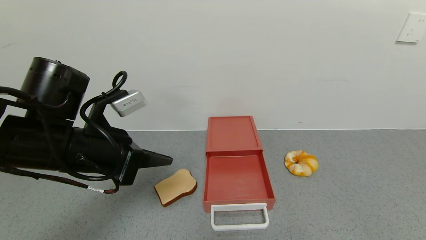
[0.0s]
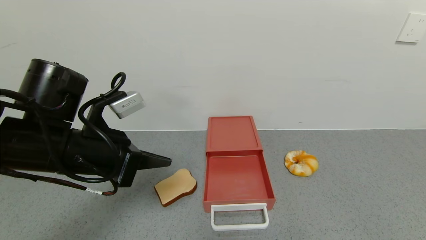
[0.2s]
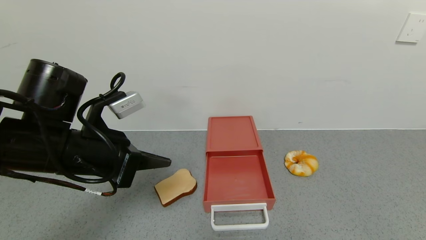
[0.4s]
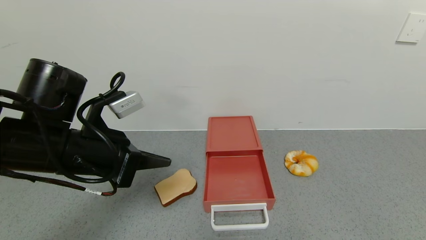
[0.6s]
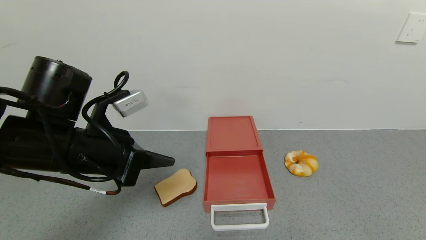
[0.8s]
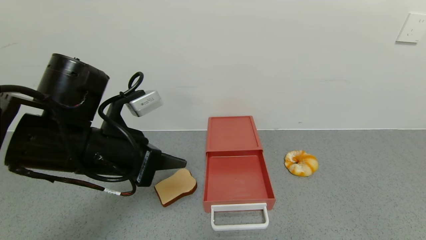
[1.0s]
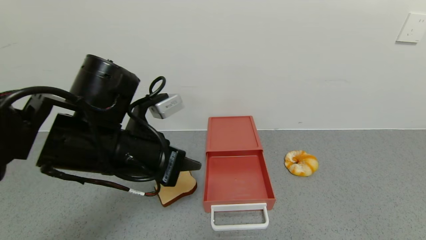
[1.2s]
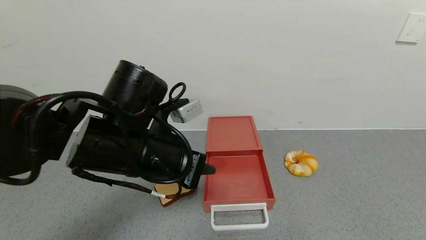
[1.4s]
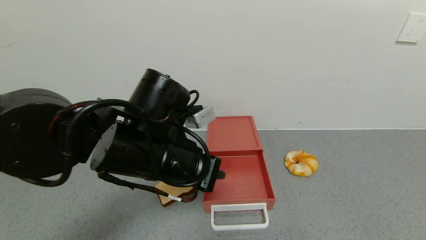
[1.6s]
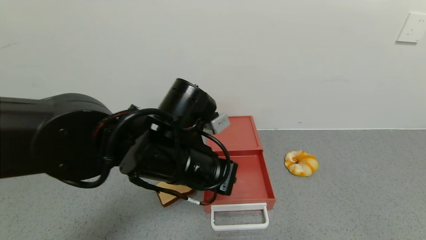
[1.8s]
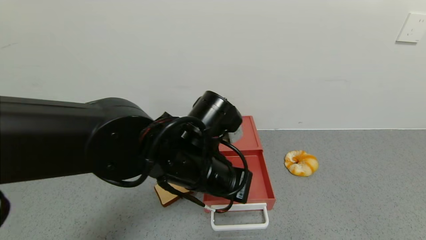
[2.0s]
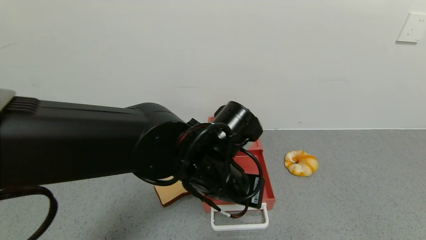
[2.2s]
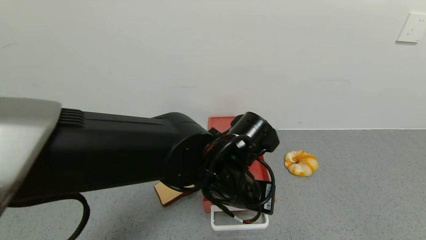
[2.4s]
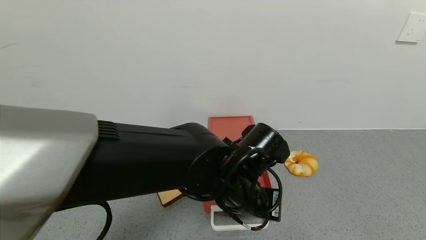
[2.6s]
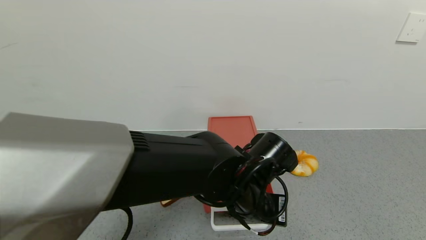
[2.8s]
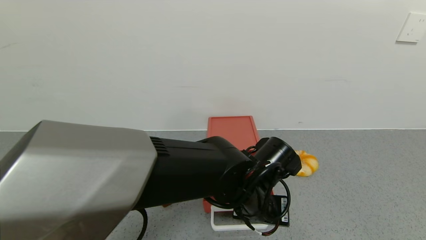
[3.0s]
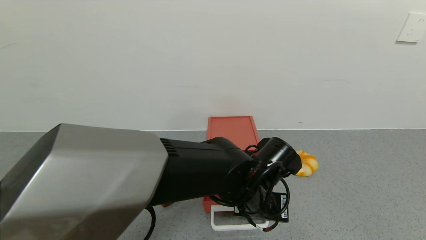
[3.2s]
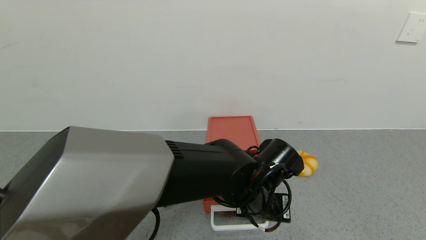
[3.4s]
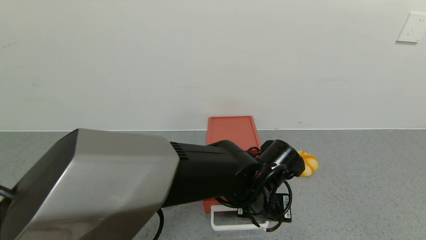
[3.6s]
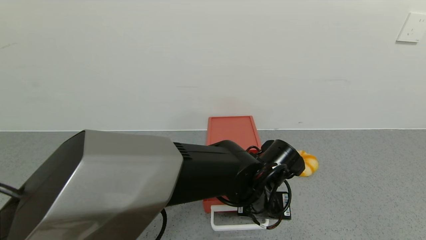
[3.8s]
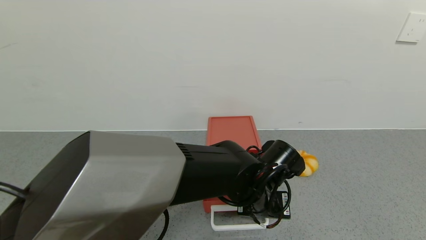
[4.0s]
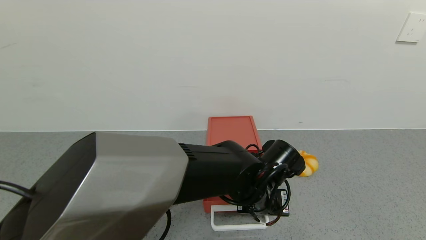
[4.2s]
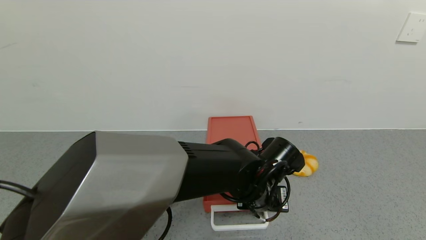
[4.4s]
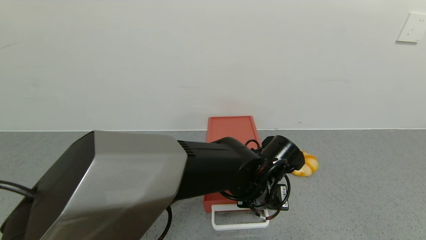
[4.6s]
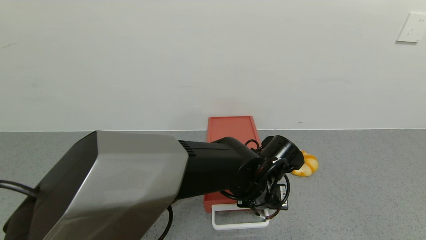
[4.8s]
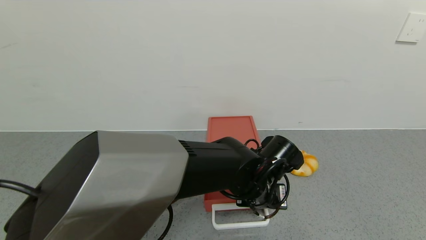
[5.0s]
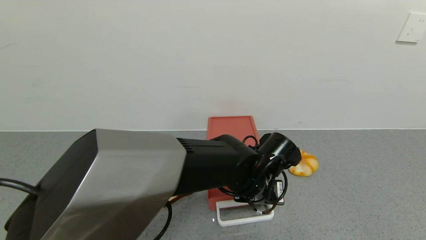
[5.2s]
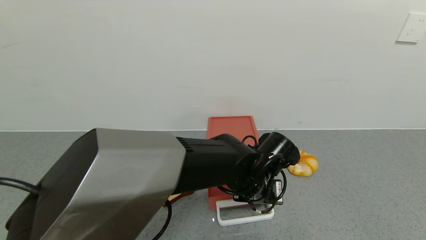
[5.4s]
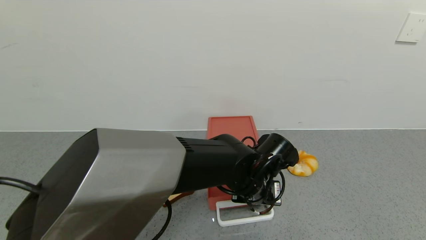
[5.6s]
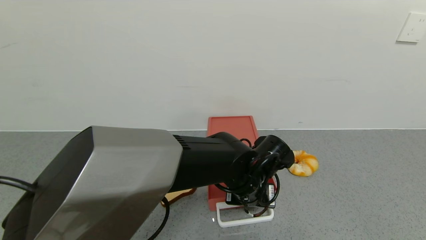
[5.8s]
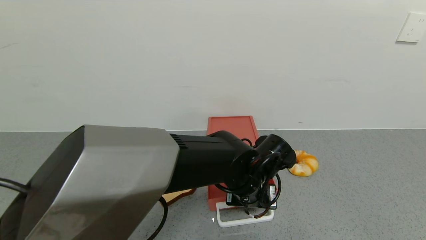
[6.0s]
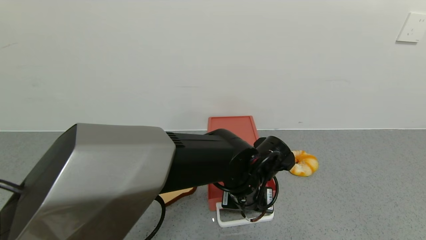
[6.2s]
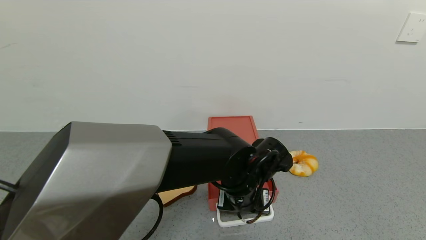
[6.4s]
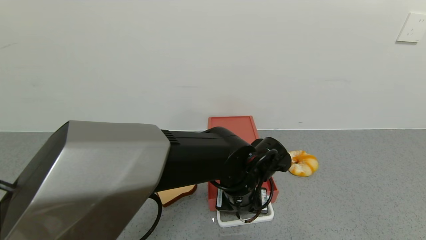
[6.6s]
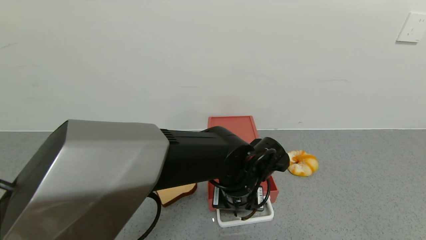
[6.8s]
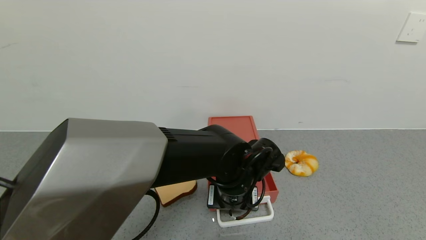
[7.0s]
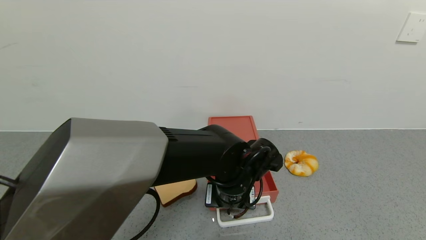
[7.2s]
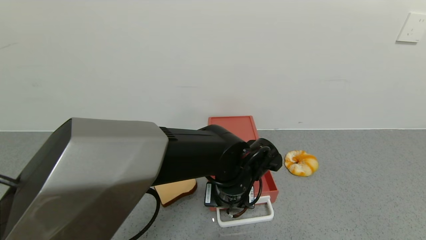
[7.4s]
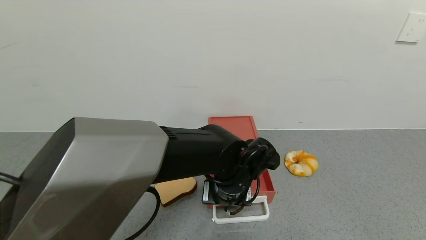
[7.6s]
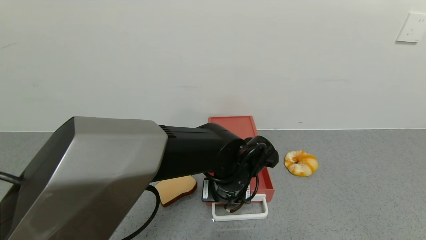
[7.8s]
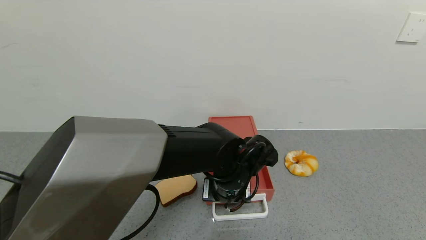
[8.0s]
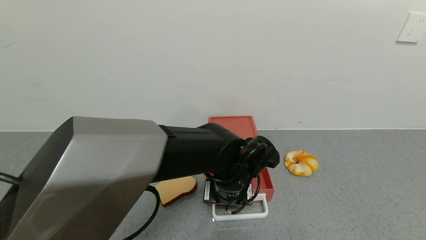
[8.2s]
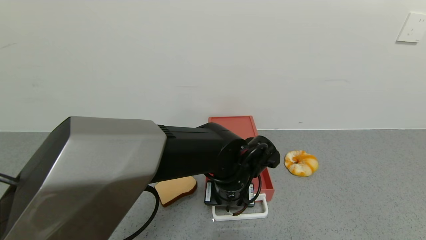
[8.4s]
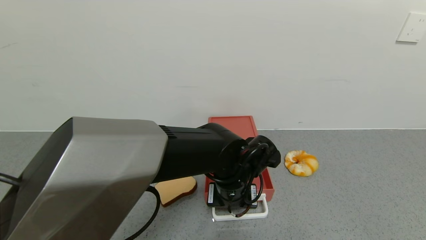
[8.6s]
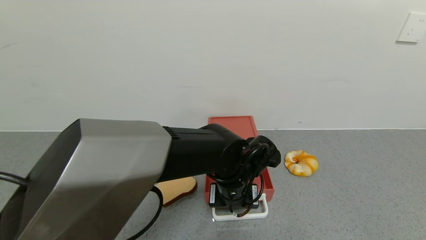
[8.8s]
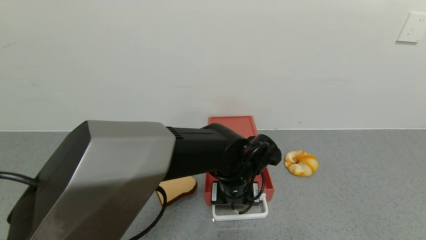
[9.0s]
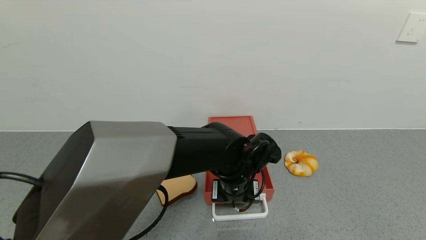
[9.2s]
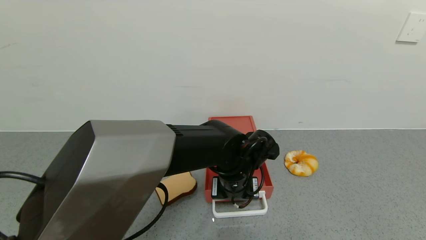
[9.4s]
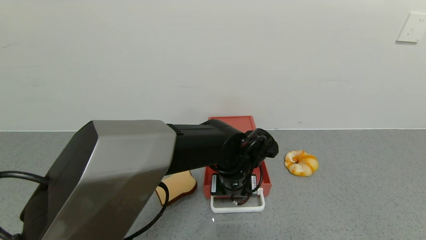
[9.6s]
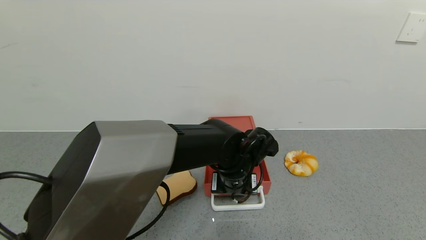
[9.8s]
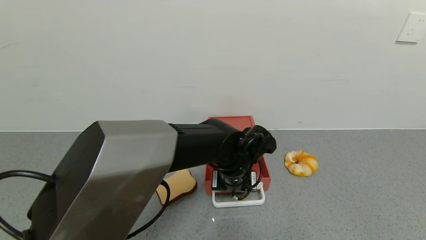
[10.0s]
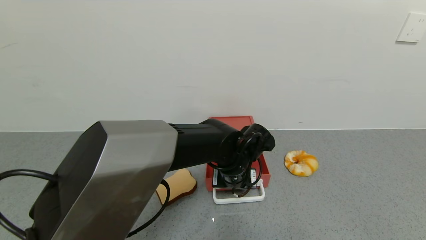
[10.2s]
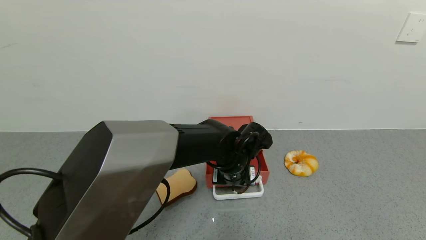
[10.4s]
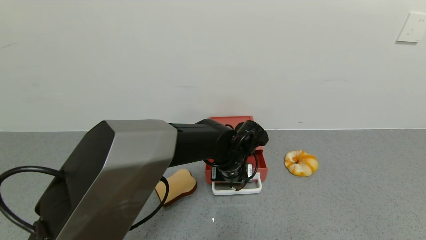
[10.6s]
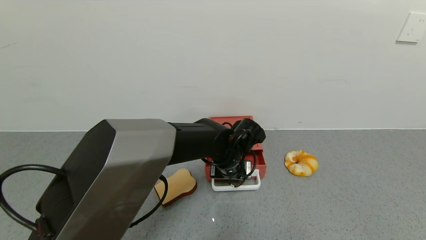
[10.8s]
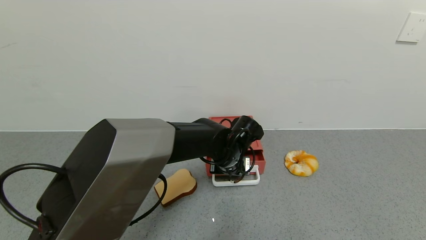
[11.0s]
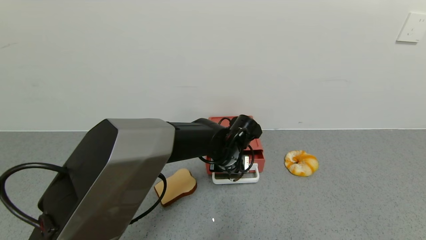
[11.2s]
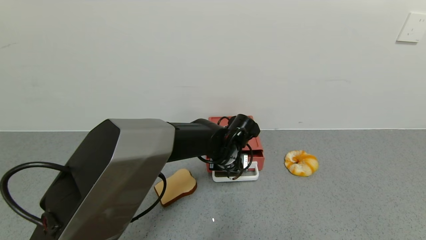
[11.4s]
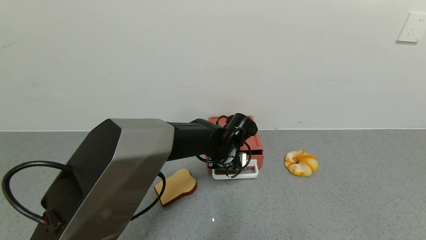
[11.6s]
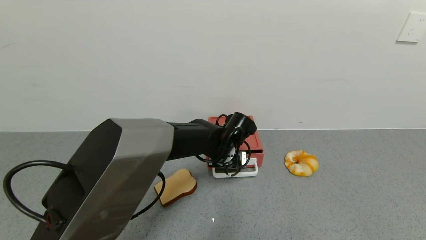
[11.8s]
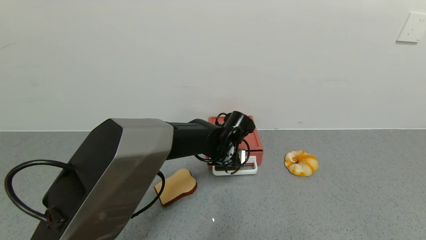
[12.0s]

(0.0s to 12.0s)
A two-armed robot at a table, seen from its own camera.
Task of the whole recording: use the gripper to open the drawer and close the red drawer.
0.0s - 1.6s: The left gripper heads to the right, covering approximately 10 cm.
1.6s - 3.0s: The left gripper shifts approximately 15 cm to the right and downward.
3.0s - 6.0s: The grippers move only a little.
6.0s - 9.0s: There are only small adjustments of the grippers.
9.0s - 10.4s: The grippers move only a little.
10.4s - 12.0s: The left gripper ends up some 5 cm from where it was.

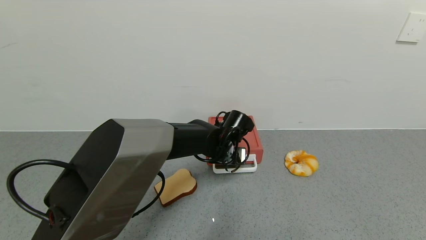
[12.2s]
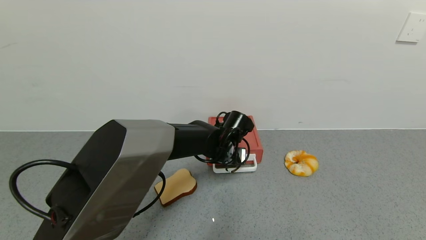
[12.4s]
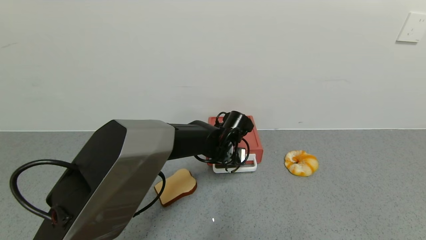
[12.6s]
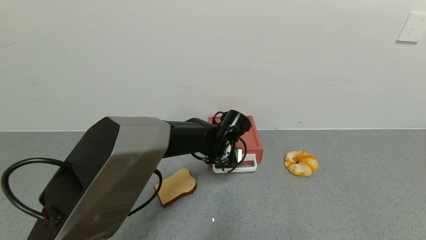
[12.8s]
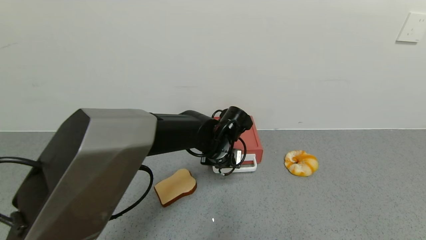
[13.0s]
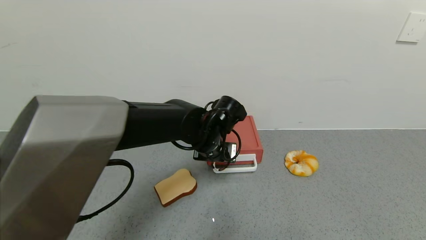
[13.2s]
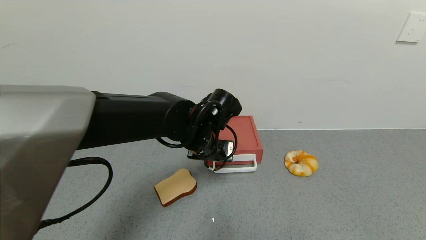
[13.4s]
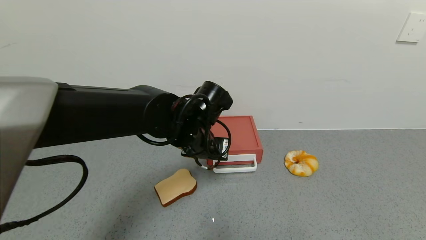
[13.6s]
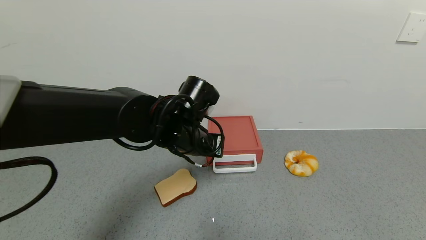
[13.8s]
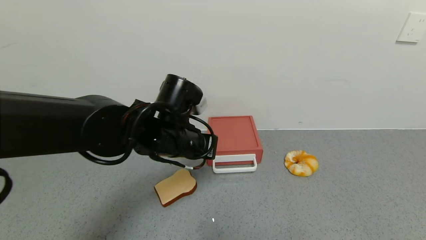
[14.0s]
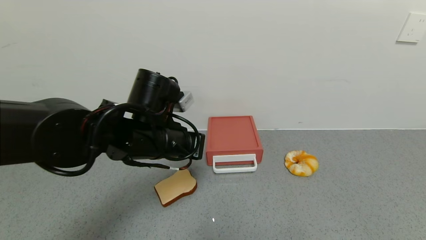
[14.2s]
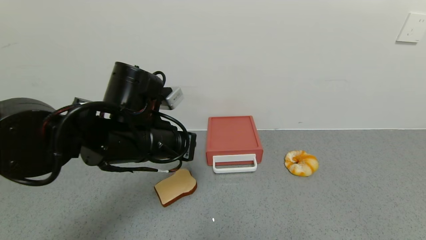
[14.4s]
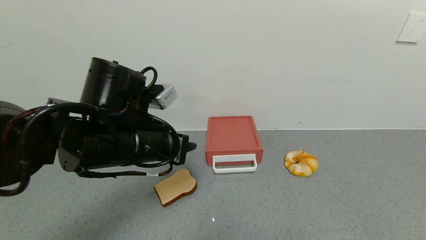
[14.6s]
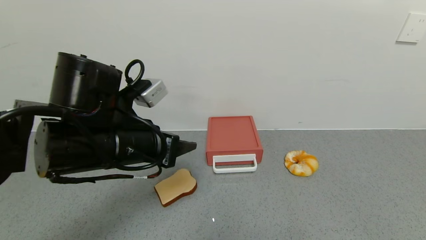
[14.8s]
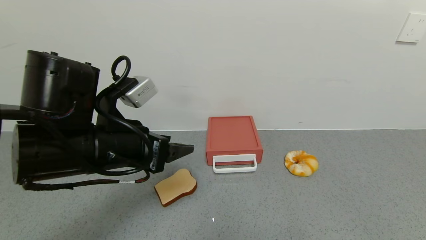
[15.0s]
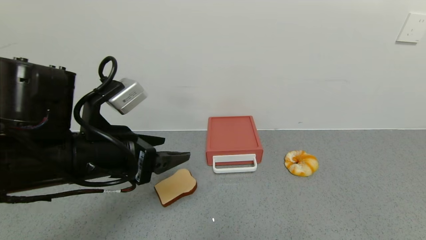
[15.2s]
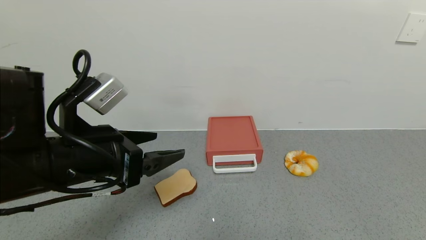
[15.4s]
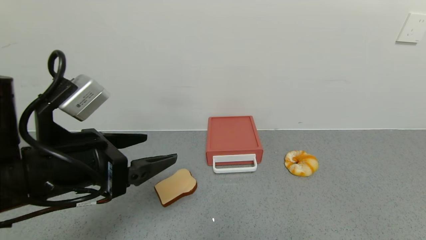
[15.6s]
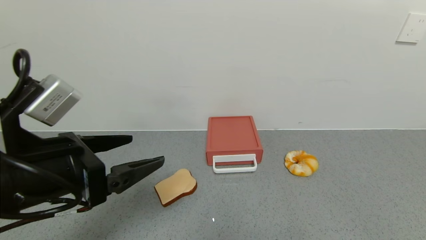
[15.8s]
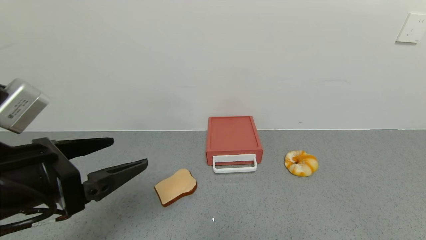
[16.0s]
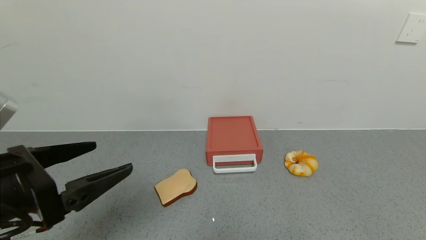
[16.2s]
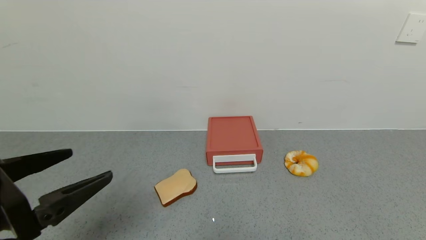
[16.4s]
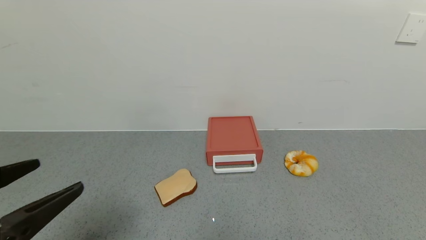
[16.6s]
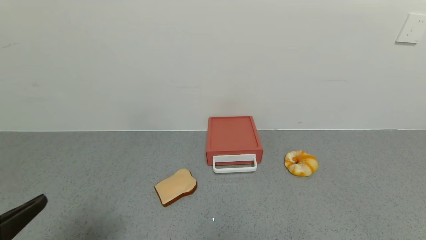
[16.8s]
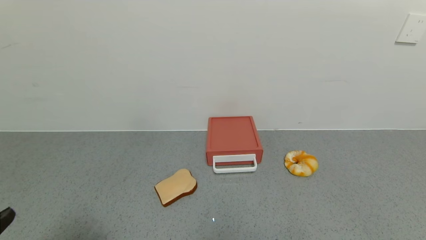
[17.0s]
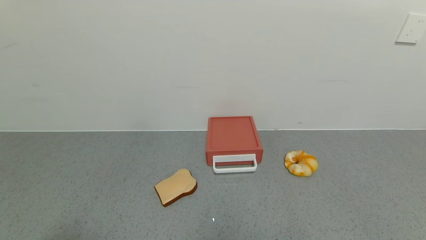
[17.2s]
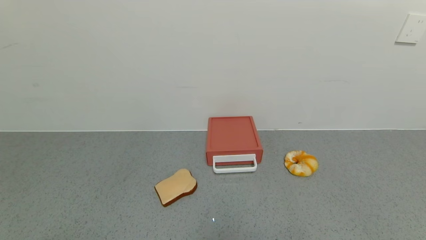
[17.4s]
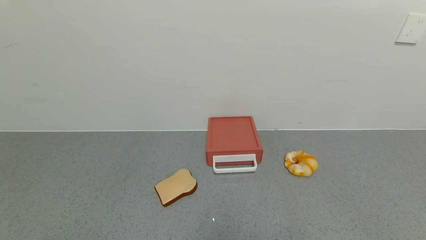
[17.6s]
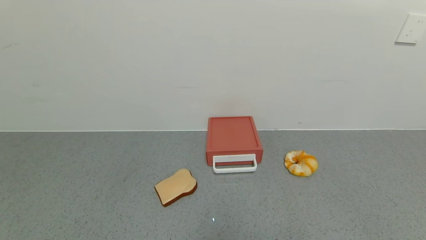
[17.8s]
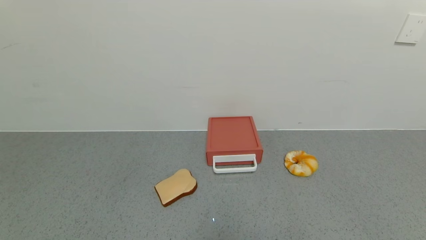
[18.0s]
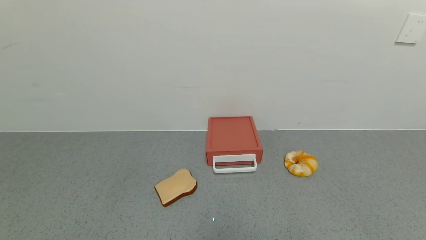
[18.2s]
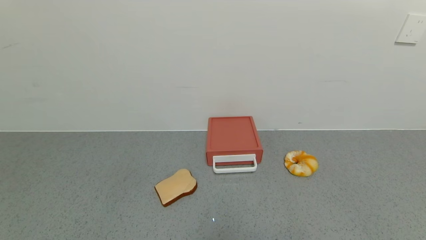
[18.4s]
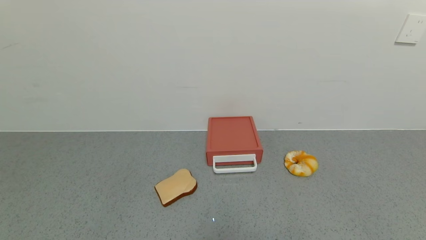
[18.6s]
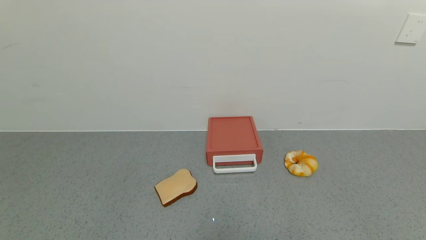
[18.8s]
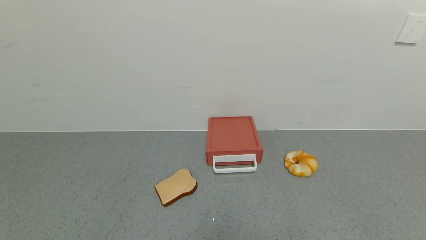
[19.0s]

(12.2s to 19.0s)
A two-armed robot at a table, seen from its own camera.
Task of the whole recording: use the gripper to open the drawer and close the red drawer.
12.2s - 13.6s: The left gripper shifts about 10 cm upward, backward and to the left.
13.6s - 15.0s: The left gripper shifts roughly 15 cm to the left, backward and upward, and opens.
15.0s - 16.2s: The left gripper travels backward and to the left by approximately 10 cm.
16.2s - 17.6s: The left gripper is displaced backward and downward by roughly 15 cm.
